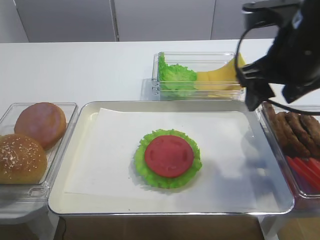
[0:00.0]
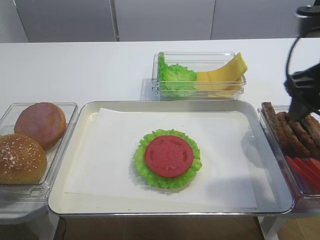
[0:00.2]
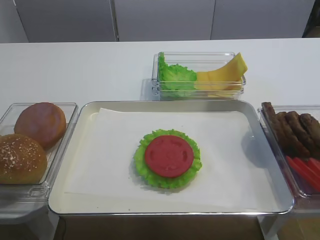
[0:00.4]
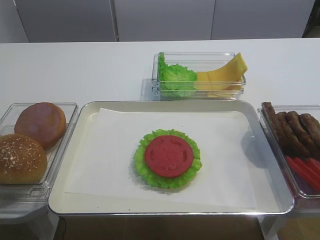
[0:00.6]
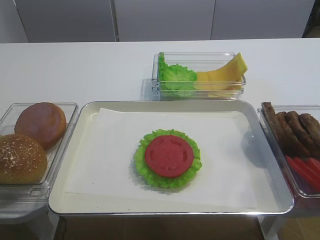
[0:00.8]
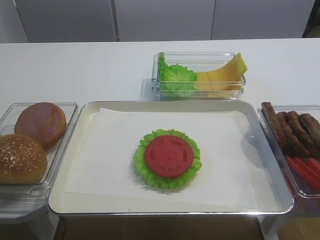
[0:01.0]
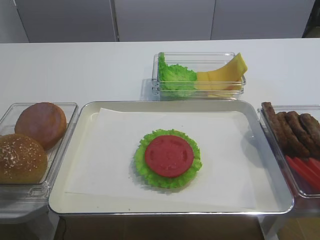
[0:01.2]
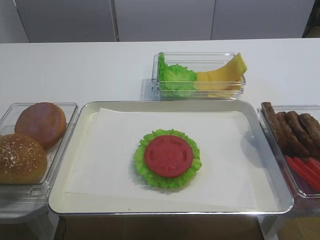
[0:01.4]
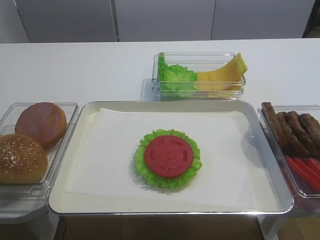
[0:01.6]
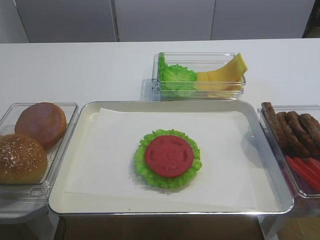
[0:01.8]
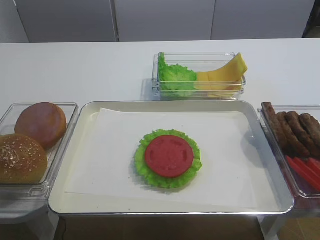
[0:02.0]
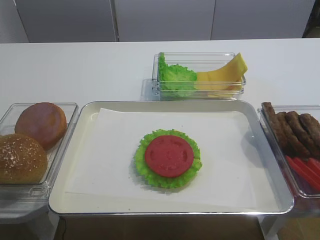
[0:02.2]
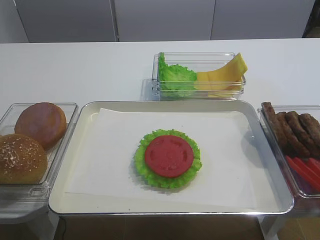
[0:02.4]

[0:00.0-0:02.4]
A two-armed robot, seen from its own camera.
0:00.0 to 0:01.2: The right gripper heads backward and to the right, covering approximately 30 cm.

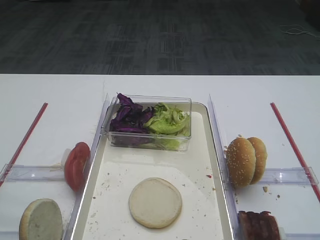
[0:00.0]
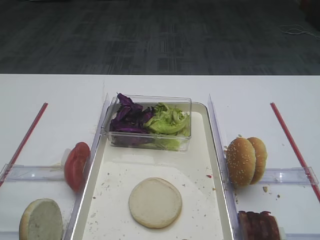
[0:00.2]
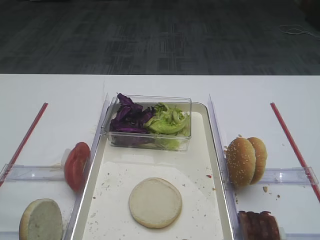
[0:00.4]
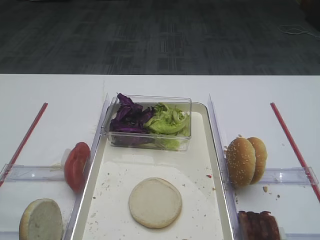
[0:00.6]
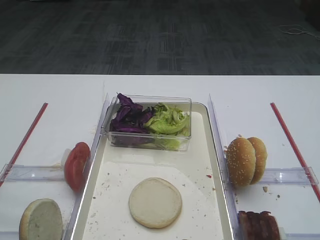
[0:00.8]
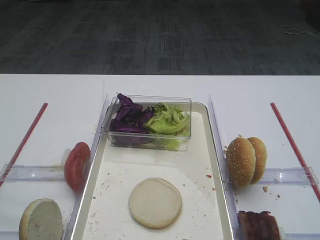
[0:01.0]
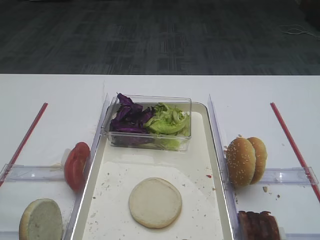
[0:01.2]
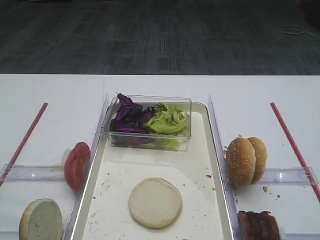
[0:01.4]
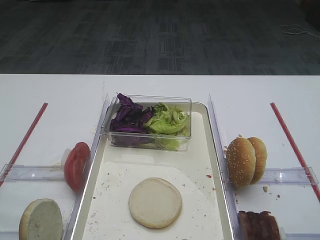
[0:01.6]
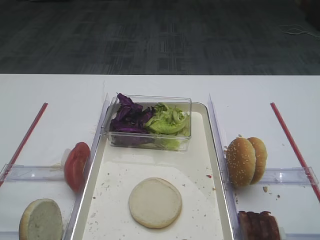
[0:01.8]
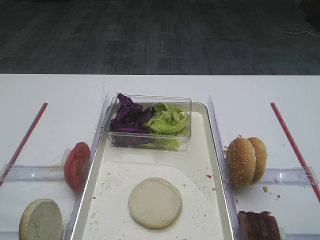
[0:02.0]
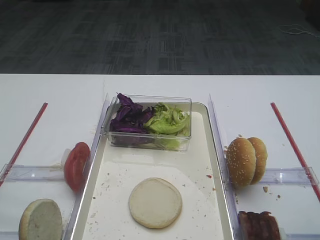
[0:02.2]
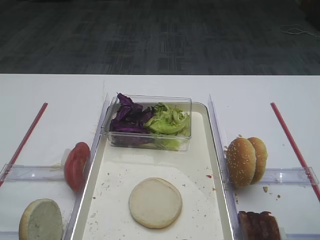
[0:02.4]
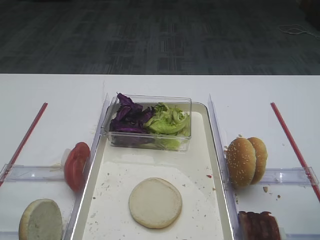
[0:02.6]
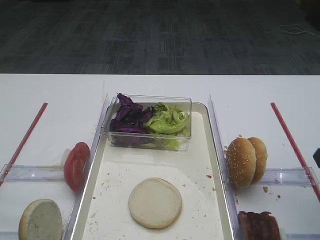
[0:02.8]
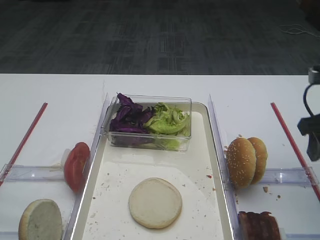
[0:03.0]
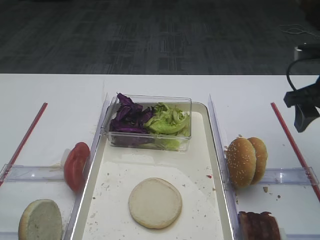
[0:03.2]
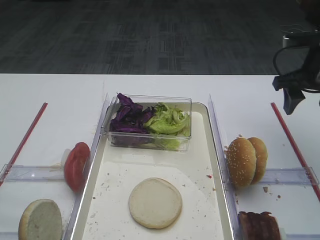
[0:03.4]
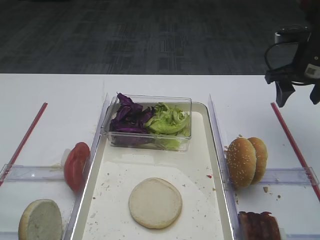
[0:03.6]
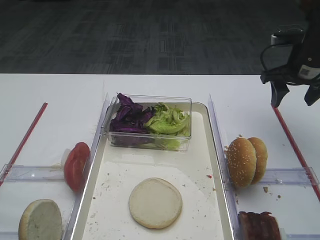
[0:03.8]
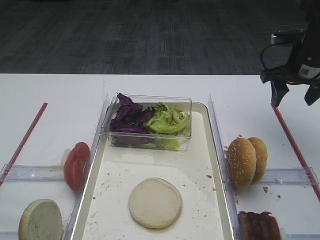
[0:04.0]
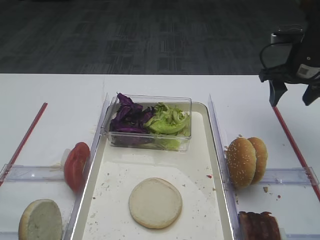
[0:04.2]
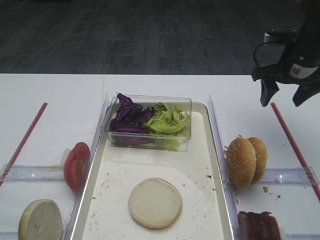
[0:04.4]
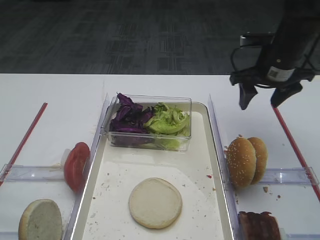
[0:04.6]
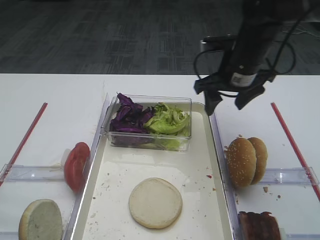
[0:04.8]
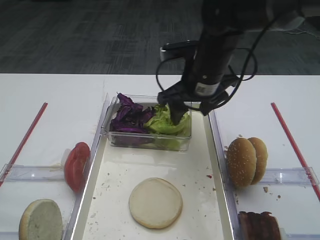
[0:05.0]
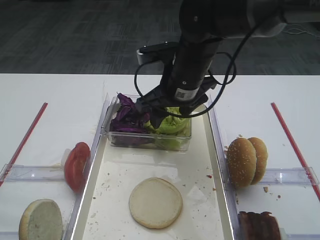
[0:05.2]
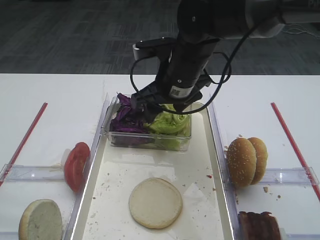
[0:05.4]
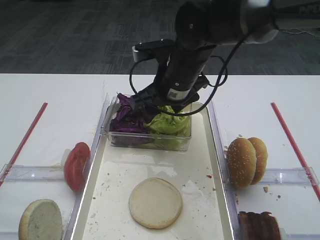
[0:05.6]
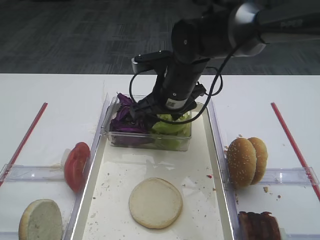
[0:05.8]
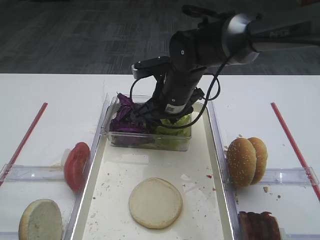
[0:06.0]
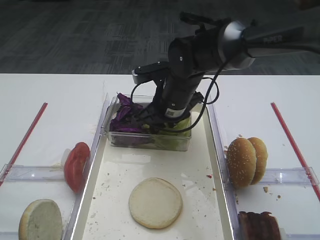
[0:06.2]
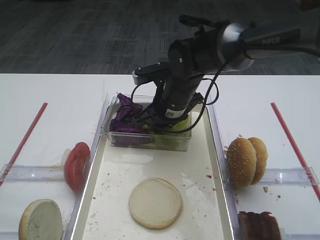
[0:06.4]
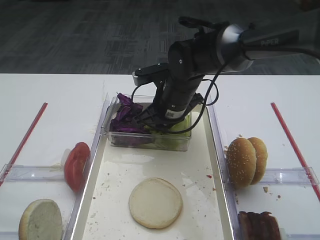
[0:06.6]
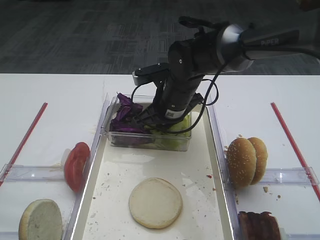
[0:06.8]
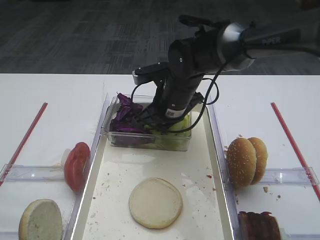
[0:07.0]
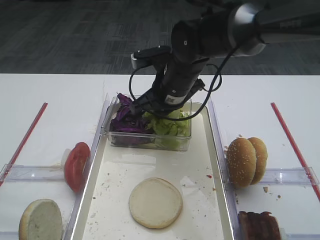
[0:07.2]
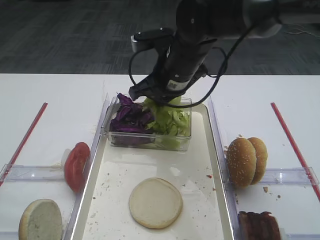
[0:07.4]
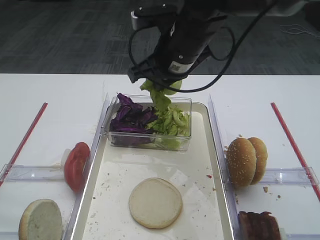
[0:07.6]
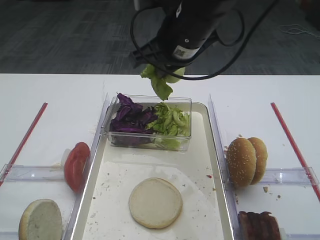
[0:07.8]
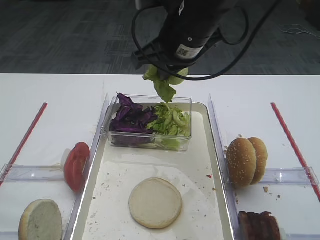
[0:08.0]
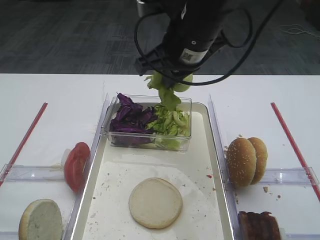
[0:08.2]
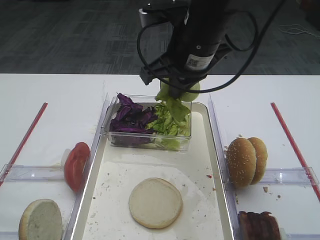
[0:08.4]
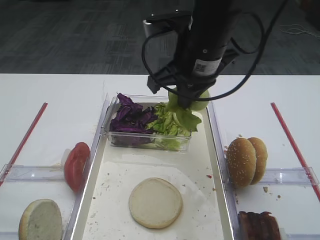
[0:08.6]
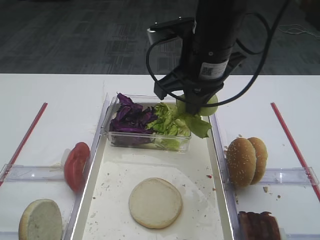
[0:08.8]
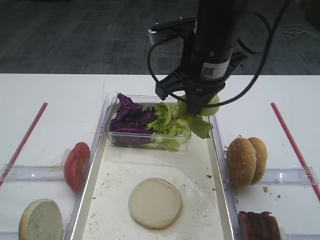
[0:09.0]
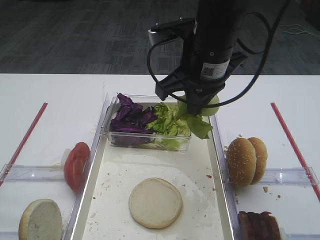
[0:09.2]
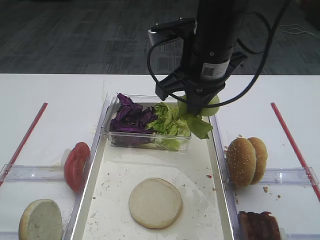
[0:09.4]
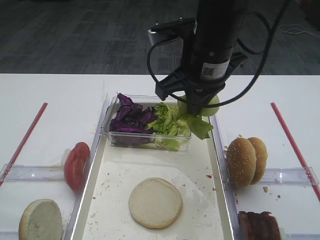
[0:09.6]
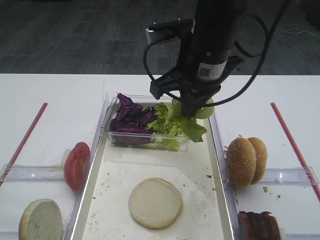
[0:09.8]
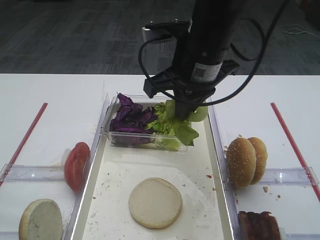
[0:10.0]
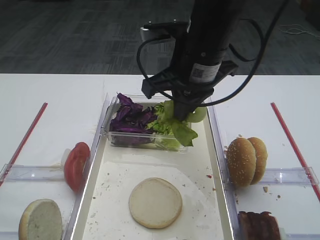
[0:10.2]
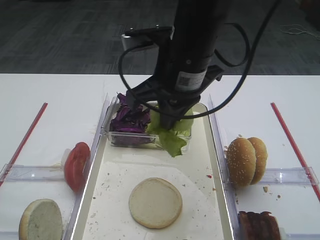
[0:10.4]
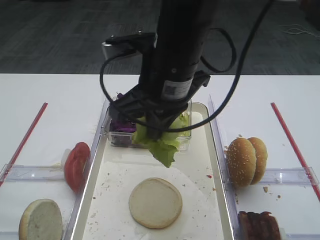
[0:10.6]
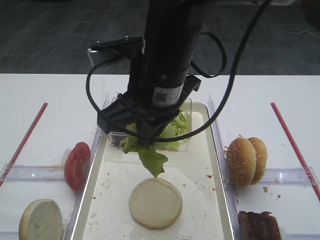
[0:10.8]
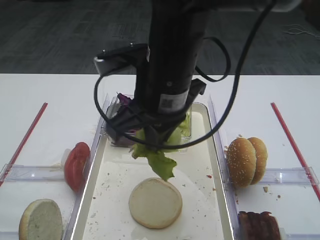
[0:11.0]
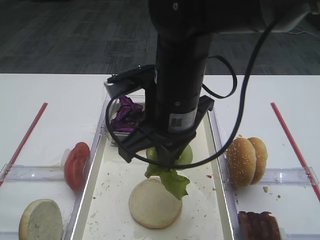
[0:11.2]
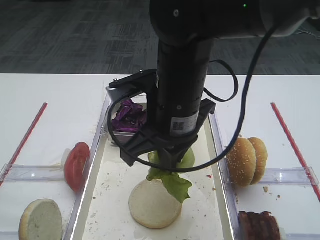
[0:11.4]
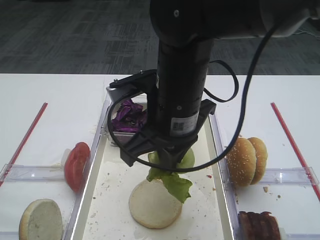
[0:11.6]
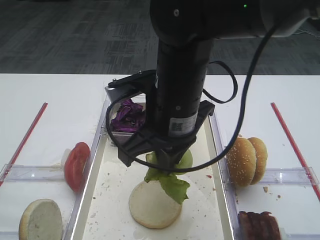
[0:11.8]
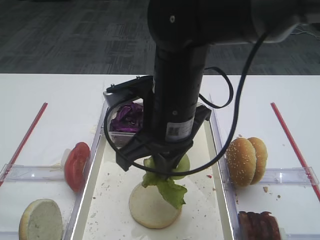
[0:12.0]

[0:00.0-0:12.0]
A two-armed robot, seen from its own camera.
Step, 0:00.0 to 0:07.4: Pick up the lettuce leaf with the right gripper.
0:01.6 to 0:03.0: The right gripper goes approximately 15 cm forward.
0:03.0 to 0:04.4: The right gripper is displaced forward by roughly 15 cm.
0:04.4 to 0:06.0: The right gripper moves to the left, some 25 cm.
0:06.0 to 0:07.6: The right gripper heads upward, covering about 10 cm, and closes up.
0:07.6 to 0:09.0: The right gripper moves about 5 cm.
0:09.0 to 0:10.4: The grippers make only small movements.
0:10.4 to 0:12.0: The right gripper changes place by approximately 5 cm.

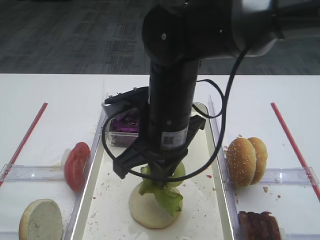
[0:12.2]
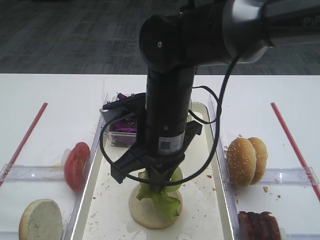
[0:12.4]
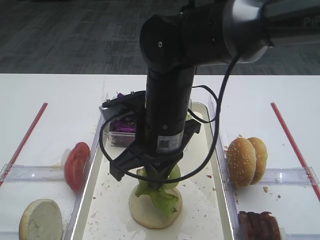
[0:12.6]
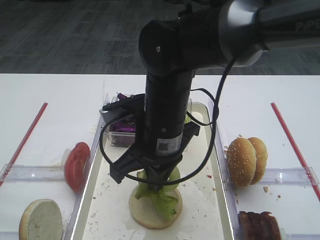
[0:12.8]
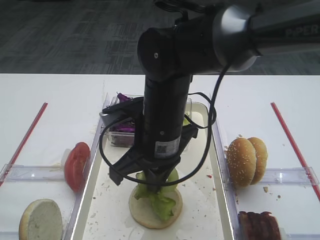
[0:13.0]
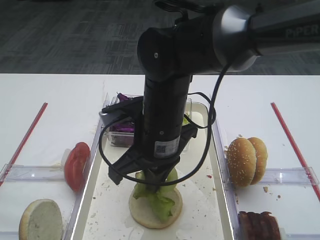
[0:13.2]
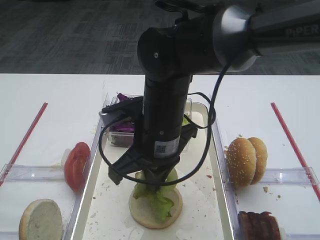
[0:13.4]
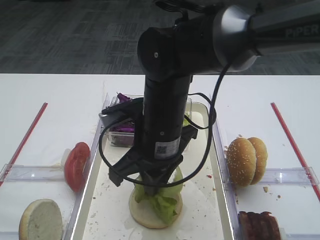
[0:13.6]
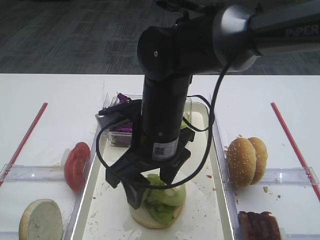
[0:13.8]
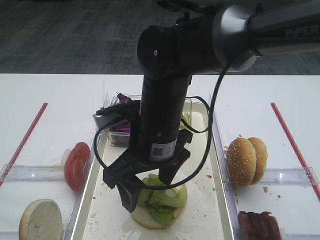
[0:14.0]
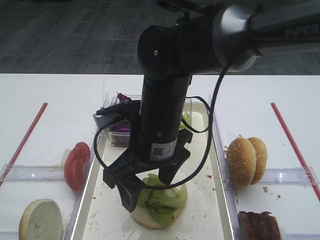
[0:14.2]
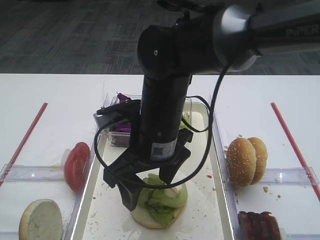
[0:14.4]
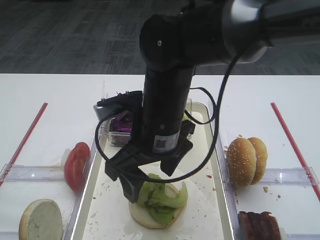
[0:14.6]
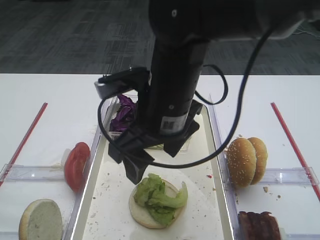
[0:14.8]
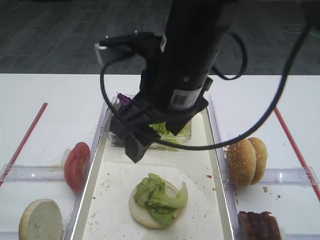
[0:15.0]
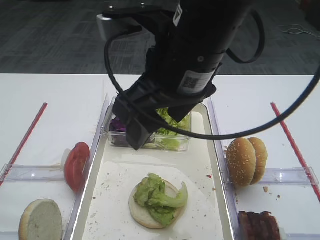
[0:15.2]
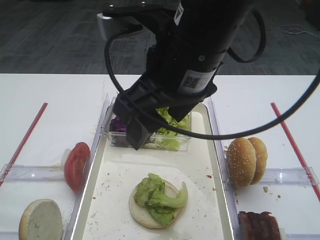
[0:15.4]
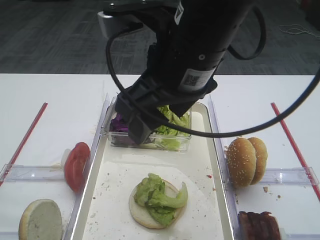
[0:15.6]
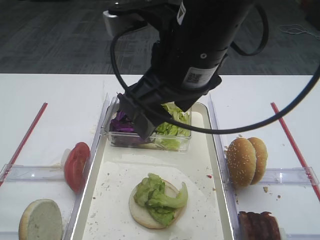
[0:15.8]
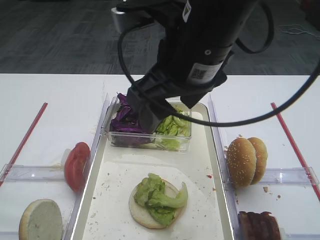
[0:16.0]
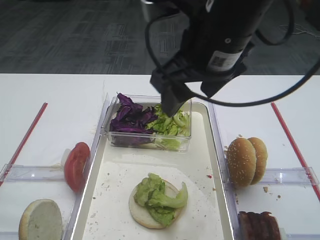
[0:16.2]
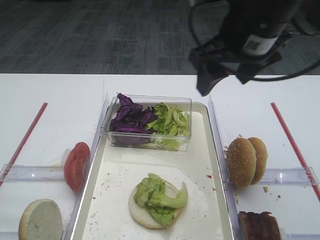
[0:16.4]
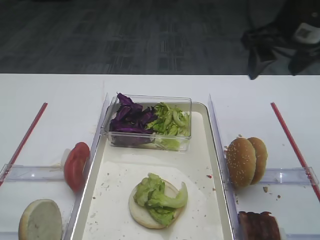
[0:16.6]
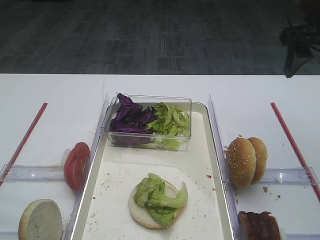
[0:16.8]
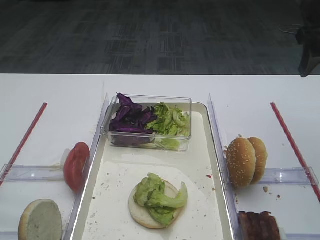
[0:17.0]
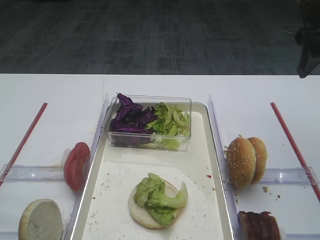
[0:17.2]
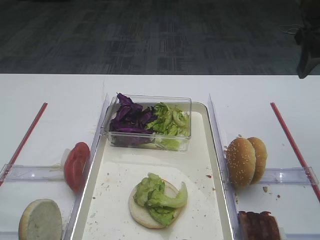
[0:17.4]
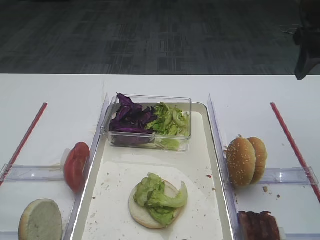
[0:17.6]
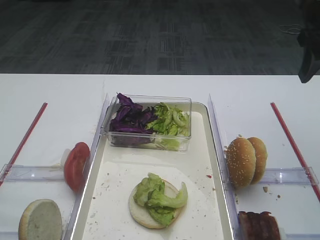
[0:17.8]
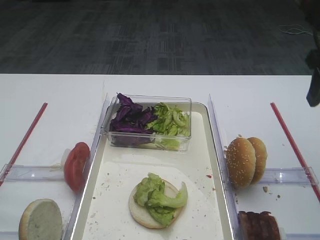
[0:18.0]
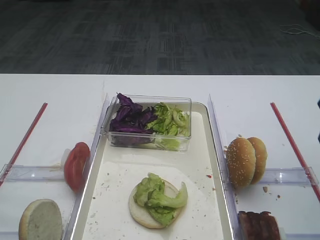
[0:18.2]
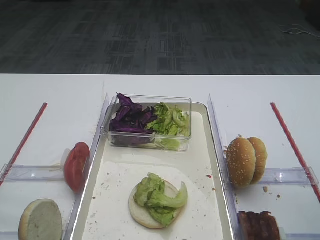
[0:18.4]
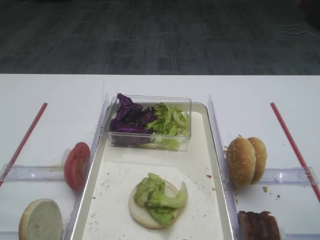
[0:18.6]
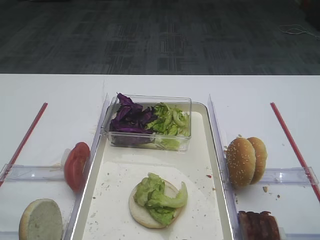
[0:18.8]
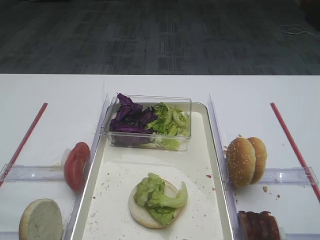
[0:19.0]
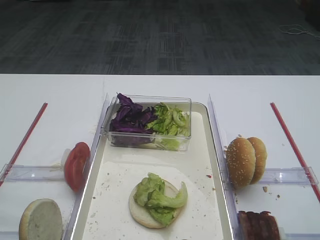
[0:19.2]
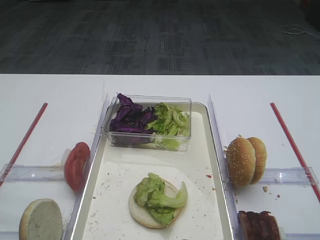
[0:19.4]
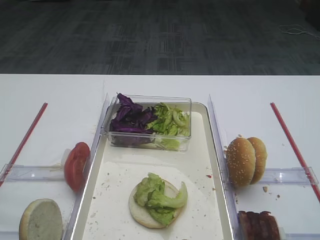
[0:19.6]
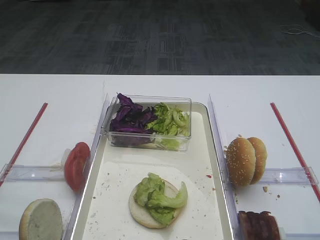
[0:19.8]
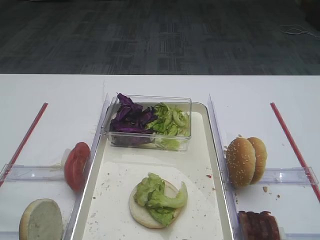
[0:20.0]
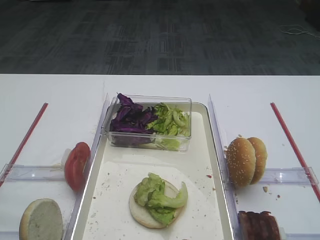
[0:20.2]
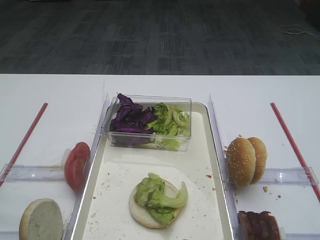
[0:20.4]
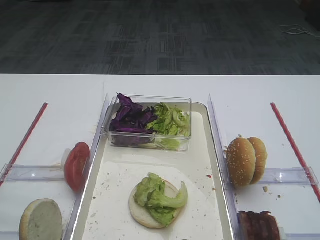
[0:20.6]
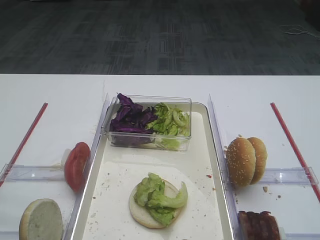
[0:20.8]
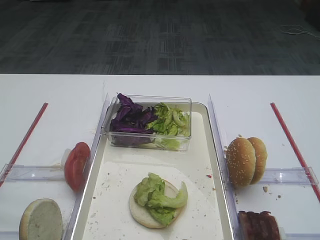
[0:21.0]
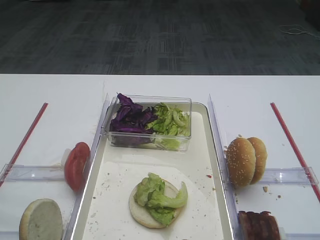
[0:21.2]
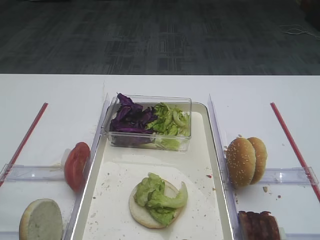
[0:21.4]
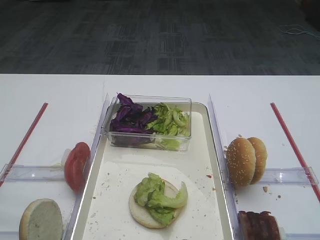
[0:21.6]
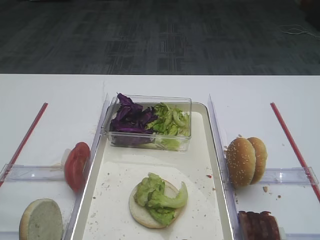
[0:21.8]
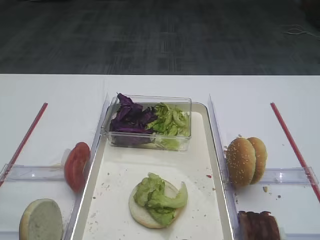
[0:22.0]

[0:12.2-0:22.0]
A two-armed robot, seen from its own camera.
0:12.2 to 0:13.6: The grippers move only a little.
0:13.6 to 0:15.0: The right gripper travels upward by approximately 10 cm, and opens its fingers.
0:15.0 to 0:16.4: The right gripper shifts approximately 10 cm to the right and forward.
0:16.4 to 0:17.8: The right gripper travels to the right by roughly 15 cm.
0:17.8 to 0:19.2: The right gripper travels backward by about 25 cm.
0:20.6 to 0:22.0: Both grippers stay put.
